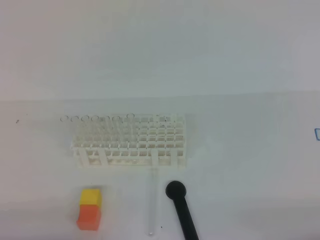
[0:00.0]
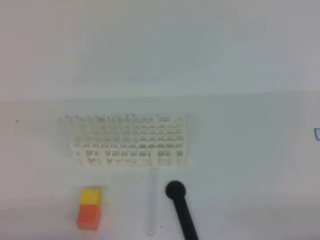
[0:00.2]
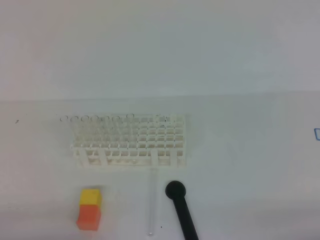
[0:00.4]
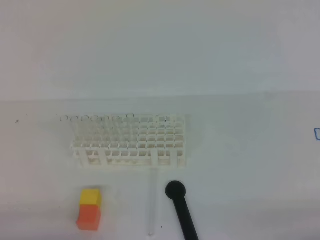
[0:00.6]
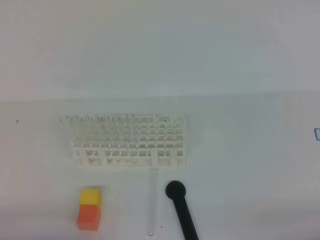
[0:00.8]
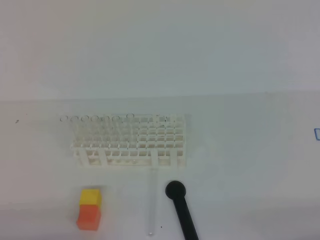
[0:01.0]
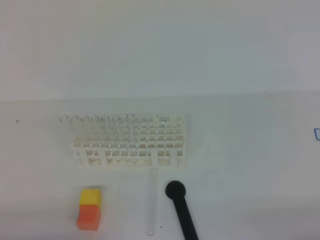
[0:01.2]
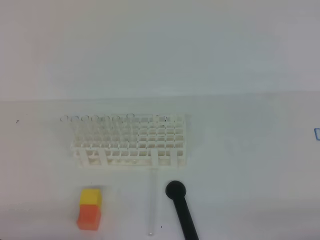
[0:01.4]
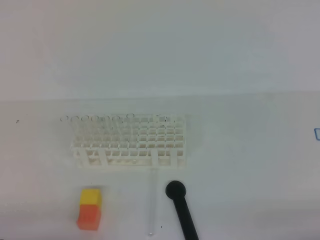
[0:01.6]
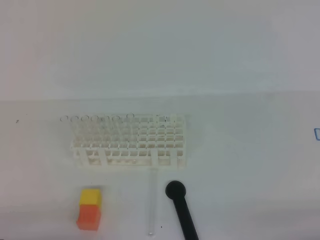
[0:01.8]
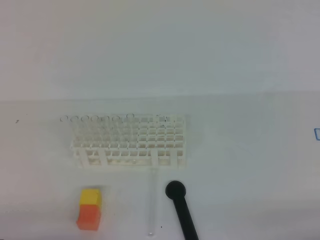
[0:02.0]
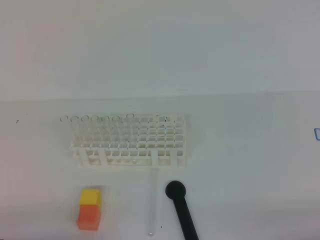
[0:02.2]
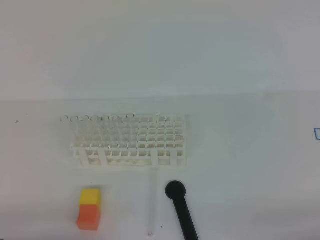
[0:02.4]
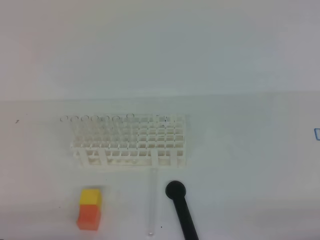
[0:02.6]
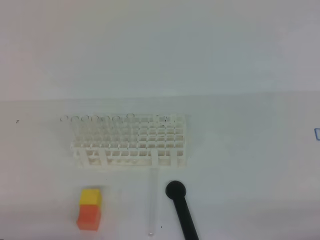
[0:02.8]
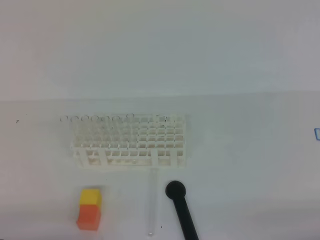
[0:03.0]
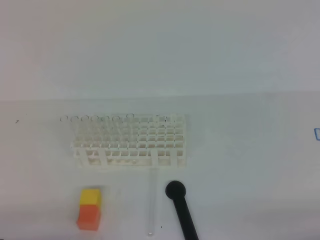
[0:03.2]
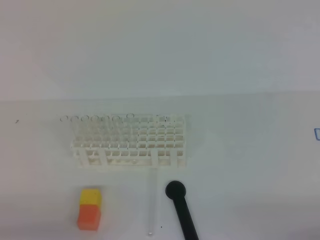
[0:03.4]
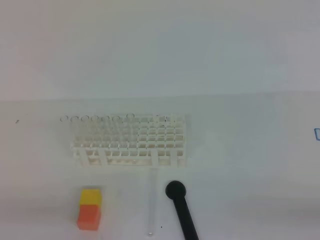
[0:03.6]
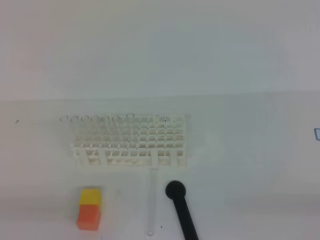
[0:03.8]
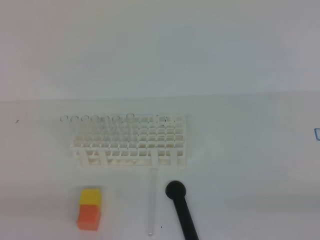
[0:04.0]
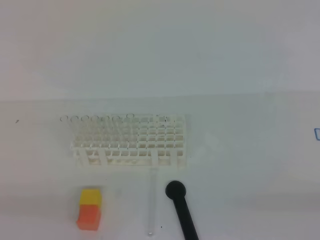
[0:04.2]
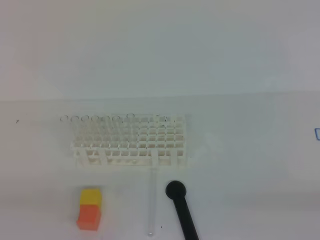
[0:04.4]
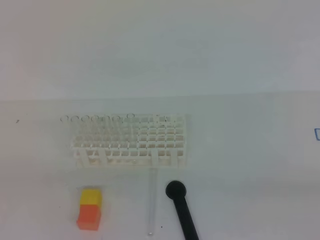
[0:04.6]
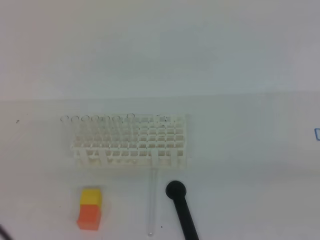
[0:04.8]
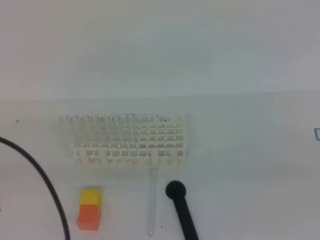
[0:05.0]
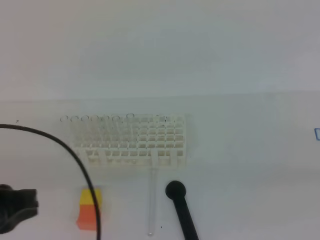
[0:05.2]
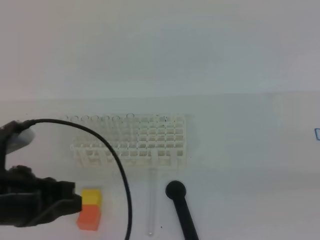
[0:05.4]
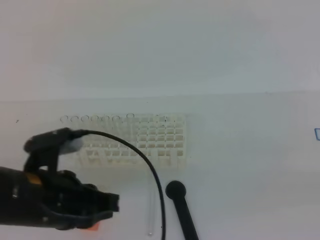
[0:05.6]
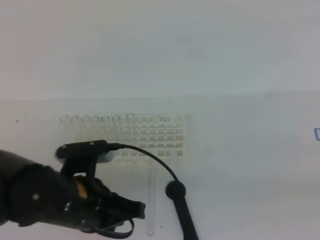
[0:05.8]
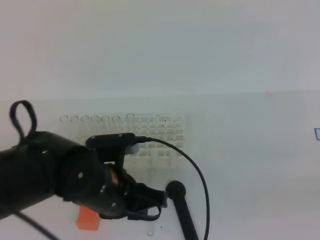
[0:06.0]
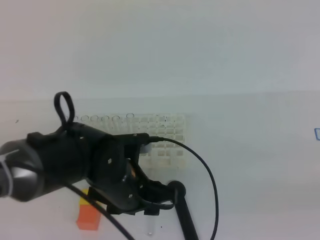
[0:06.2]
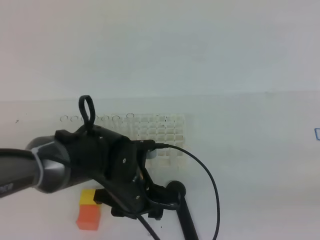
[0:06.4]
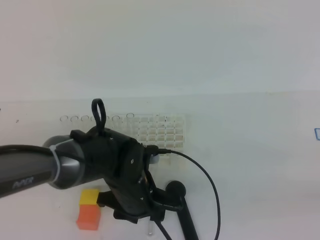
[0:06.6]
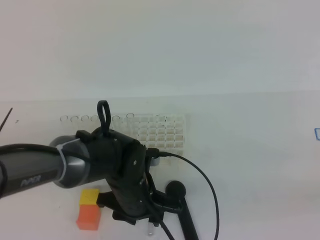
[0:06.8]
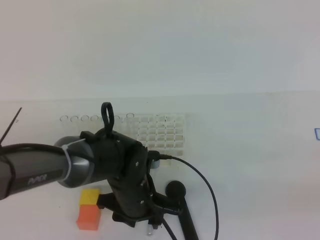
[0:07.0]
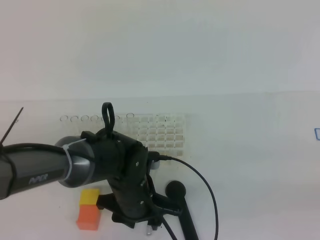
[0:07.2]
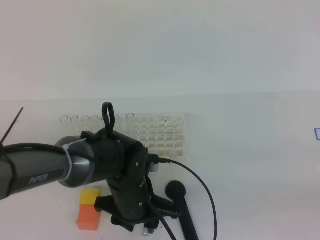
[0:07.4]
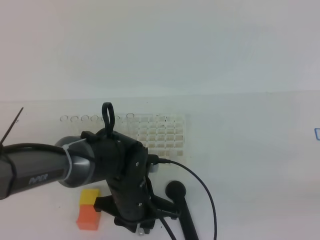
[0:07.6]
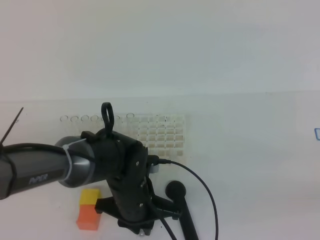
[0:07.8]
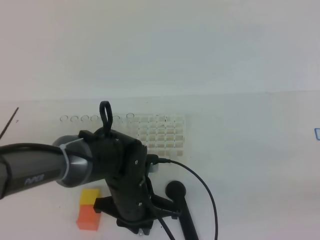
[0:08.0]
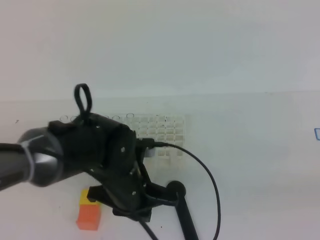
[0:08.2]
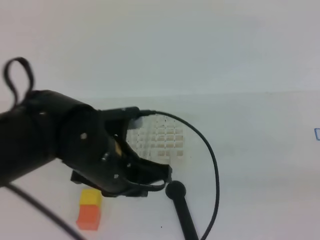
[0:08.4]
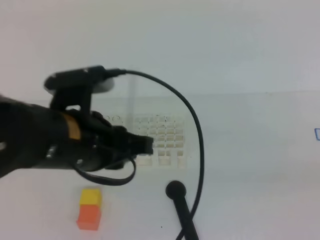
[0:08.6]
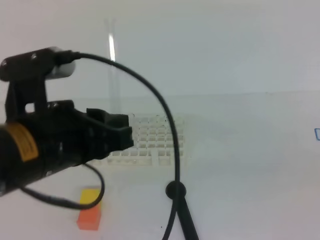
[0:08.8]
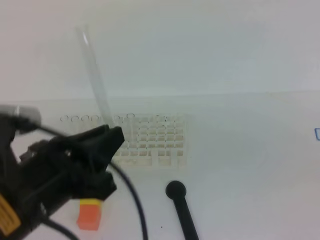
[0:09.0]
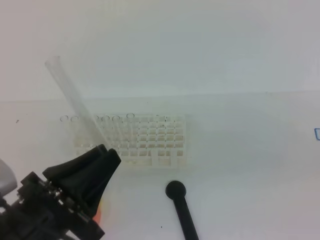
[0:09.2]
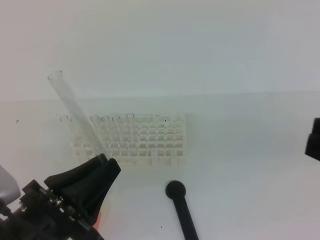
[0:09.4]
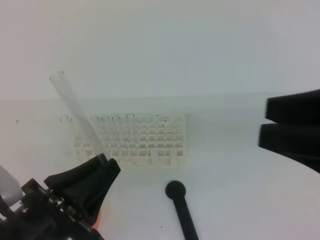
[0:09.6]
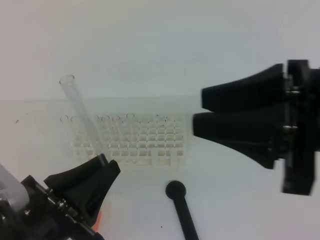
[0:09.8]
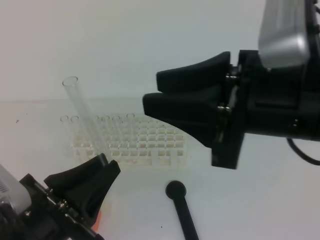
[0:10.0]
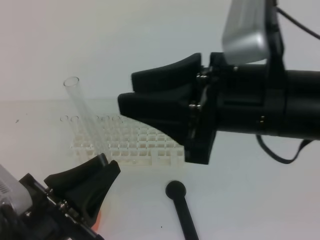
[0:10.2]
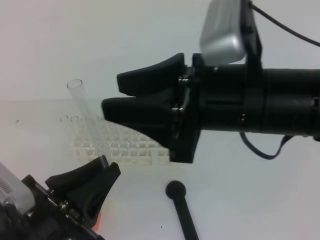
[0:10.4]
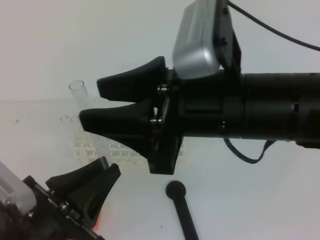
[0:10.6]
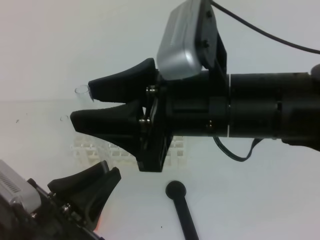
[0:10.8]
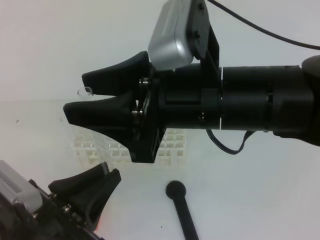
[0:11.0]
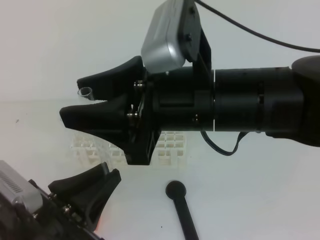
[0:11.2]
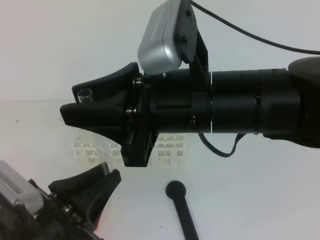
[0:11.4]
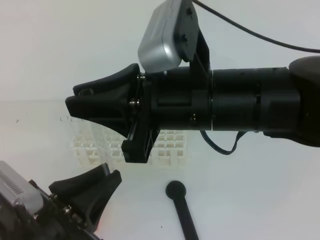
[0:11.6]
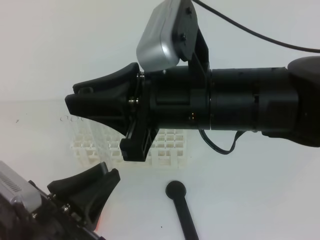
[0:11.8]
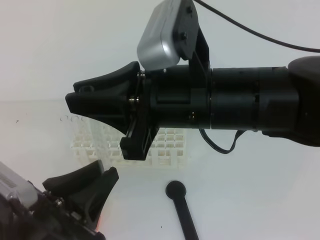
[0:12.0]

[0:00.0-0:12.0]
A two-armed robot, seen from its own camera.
0:00.0 to 0:03.0: Both grippers stay about where they are.
0:04.4 to 0:06.0: The right gripper shifts approximately 5 cm upward, while the left gripper goes roughly 25 cm to the right and forward, and opens its fingers.
0:06.0 to 0:07.6: The left gripper heads downward, covering some 10 cm, and opens and closes again.
0:07.6 to 0:09.0: The right gripper shifts by roughly 5 cm. The left gripper travels upward, backward and to the left by about 20 cm, and closes.
0:09.0 to 0:10.4: The right gripper is displaced to the left and forward by some 25 cm, and opens up. The left gripper heads downward, covering approximately 5 cm.
0:10.4 to 0:12.0: The right gripper closes up.

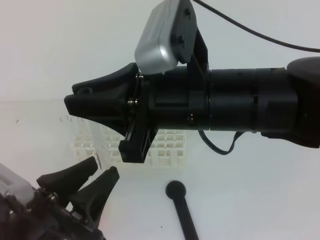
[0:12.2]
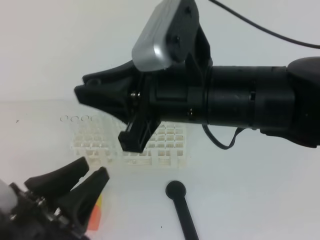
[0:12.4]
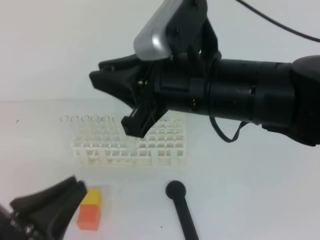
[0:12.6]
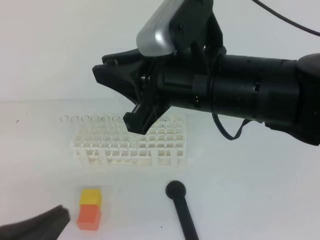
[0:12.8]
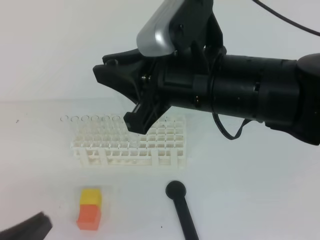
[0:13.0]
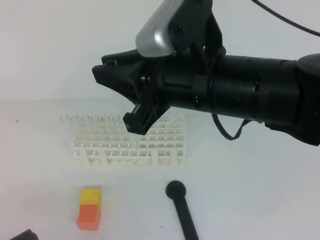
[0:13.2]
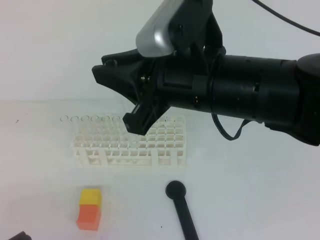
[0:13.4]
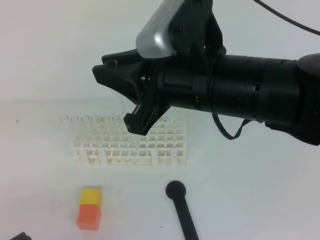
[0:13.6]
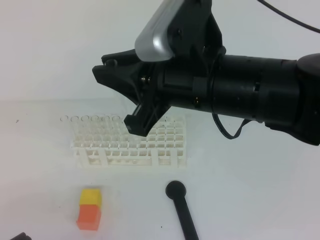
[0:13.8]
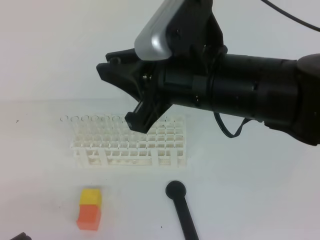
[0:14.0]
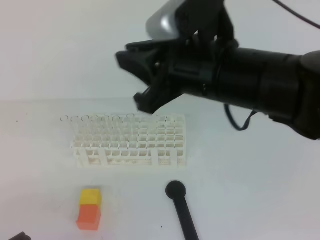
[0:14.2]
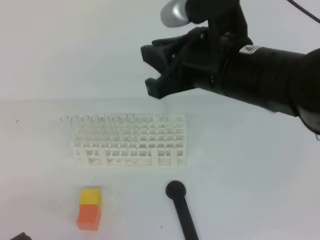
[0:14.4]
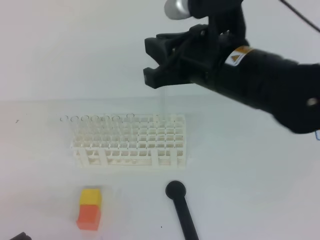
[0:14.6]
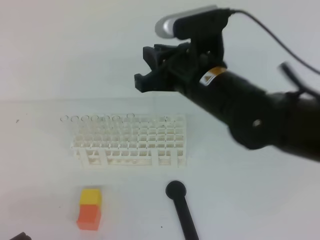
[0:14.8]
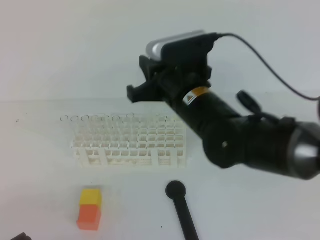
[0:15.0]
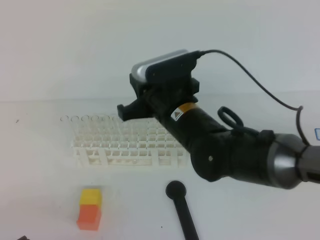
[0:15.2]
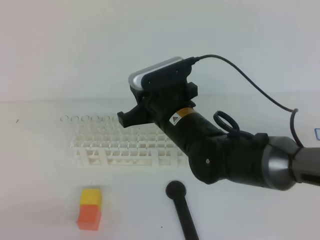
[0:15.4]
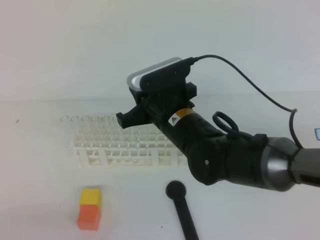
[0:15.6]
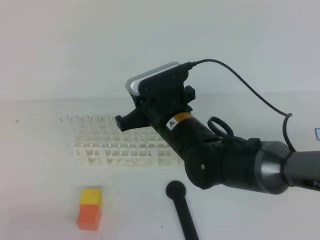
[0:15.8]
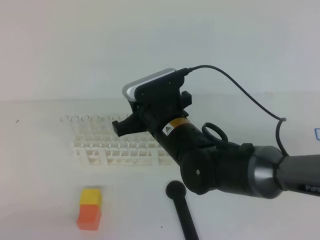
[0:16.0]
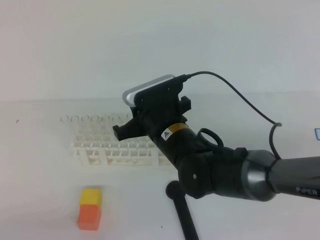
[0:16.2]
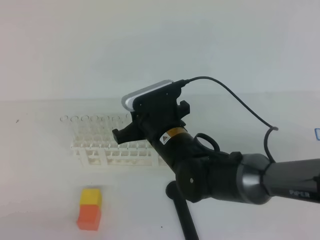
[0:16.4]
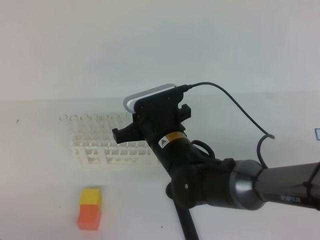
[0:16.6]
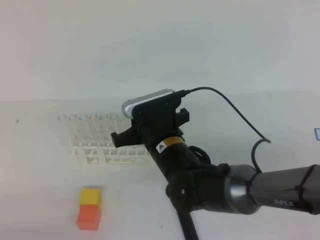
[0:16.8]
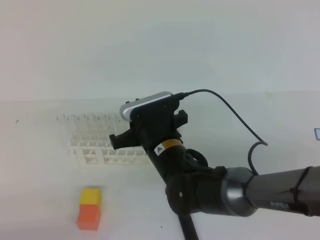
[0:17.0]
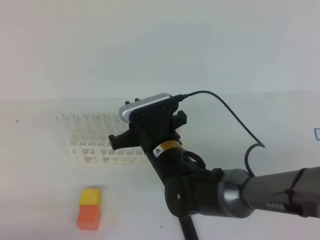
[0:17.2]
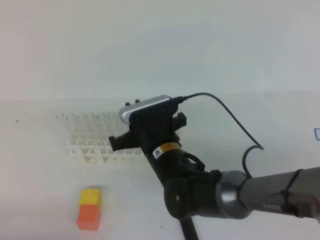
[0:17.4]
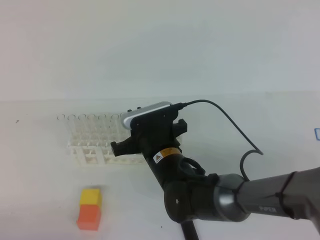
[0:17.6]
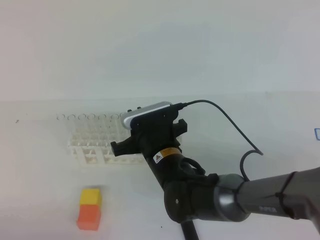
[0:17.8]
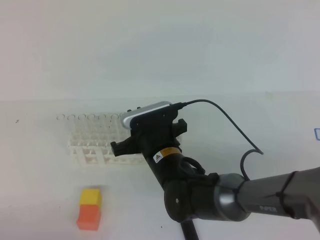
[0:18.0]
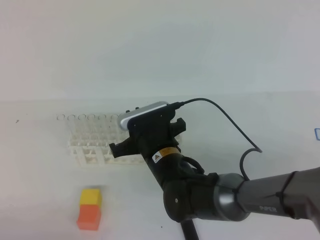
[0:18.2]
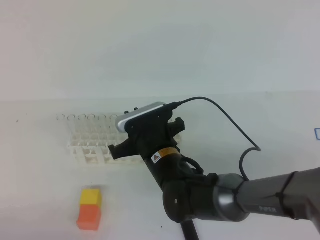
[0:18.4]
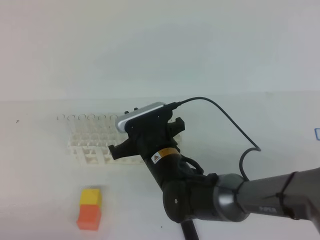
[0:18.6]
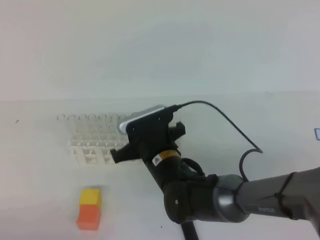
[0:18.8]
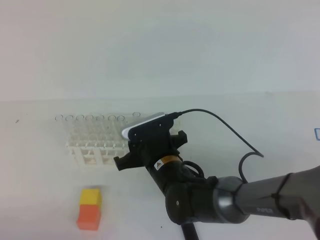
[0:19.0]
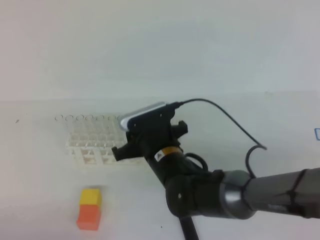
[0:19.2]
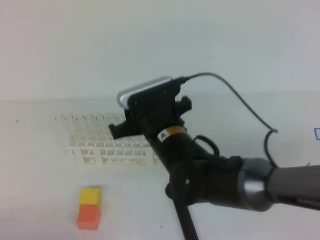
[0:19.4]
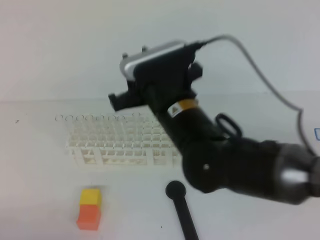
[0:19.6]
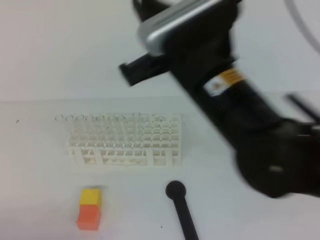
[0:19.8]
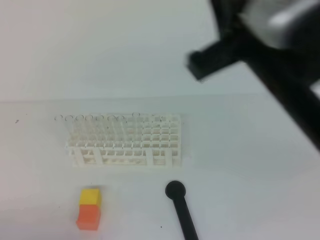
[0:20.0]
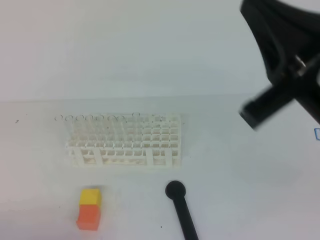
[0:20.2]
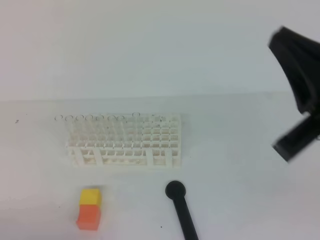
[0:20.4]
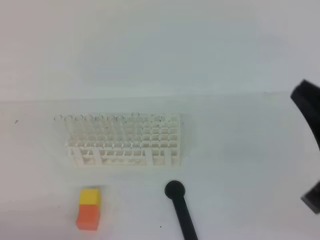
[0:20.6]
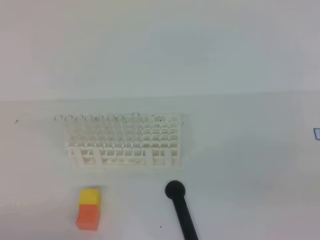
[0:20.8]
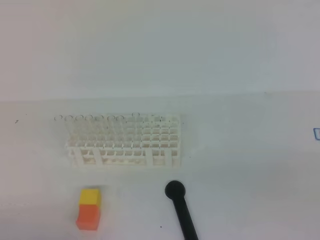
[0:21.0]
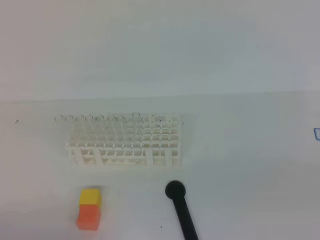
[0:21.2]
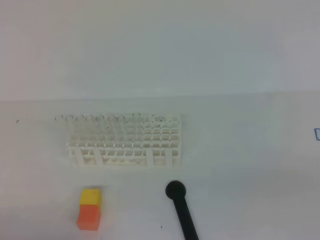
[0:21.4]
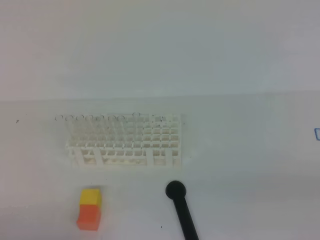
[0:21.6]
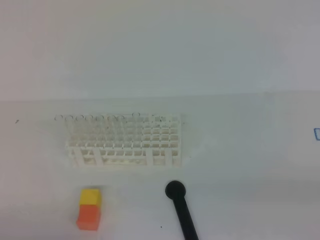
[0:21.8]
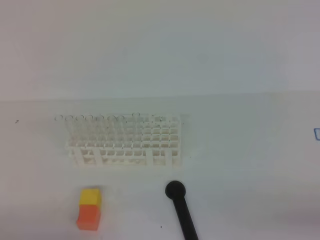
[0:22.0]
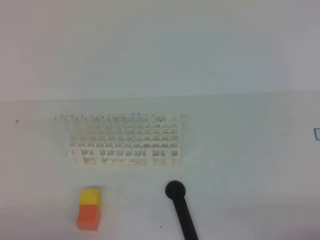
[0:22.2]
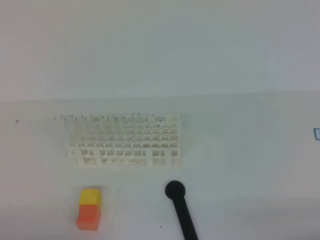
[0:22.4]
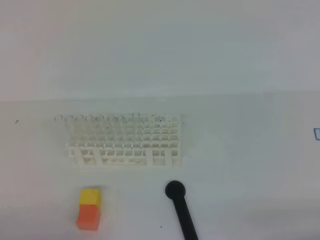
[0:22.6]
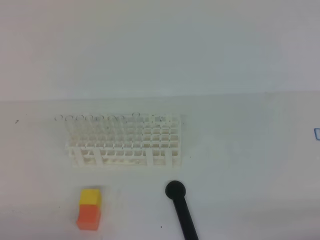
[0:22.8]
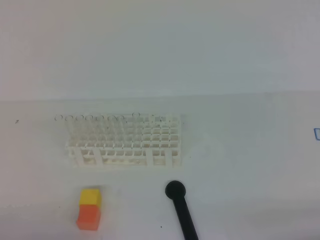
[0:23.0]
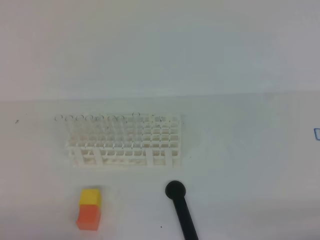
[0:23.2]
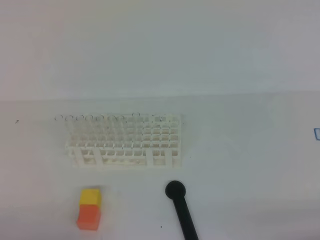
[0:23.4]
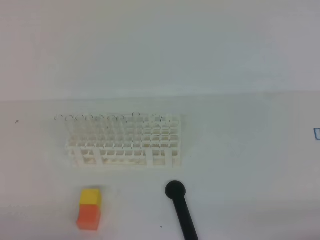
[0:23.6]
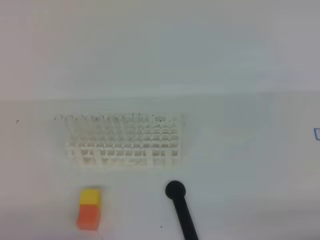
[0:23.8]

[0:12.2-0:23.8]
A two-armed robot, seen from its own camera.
0:12.2 to 0:13.6: The left gripper shifts about 10 cm to the left and backward, and closes up.
0:13.6 to 0:15.0: The right gripper moves downward and forward, about 10 cm.
0:15.0 to 0:16.6: The right gripper goes roughly 10 cm downward.
0:18.0 to 0:19.4: The right gripper moves upward, about 5 cm, and opens its fingers.
0:19.4 to 0:21.0: The right gripper goes some 35 cm to the right and backward, and closes up.
0:22.4 to 0:23.8: Both grippers stay put.
